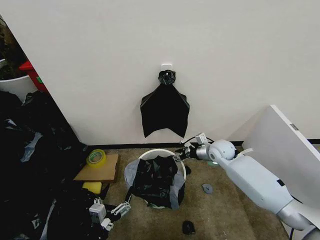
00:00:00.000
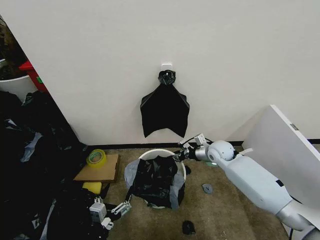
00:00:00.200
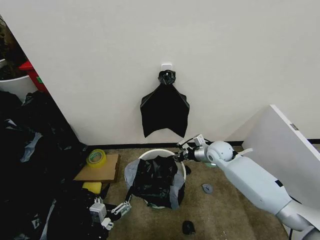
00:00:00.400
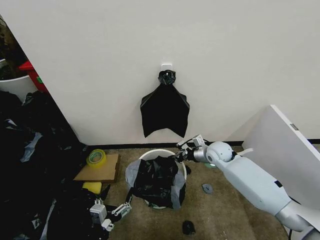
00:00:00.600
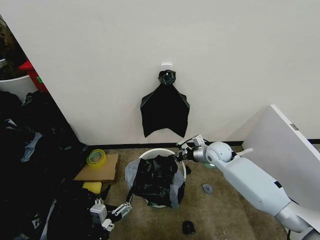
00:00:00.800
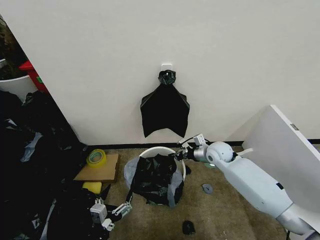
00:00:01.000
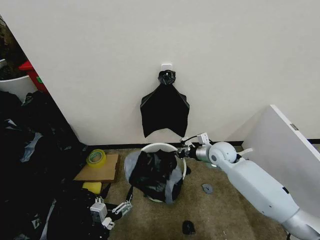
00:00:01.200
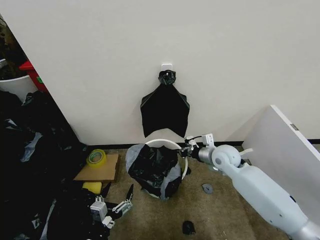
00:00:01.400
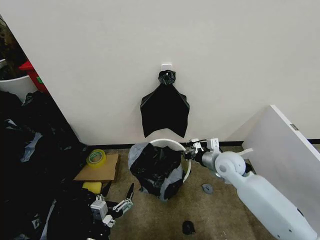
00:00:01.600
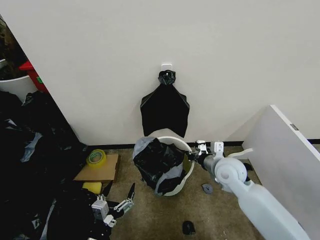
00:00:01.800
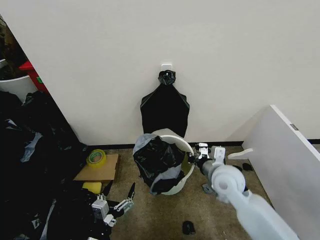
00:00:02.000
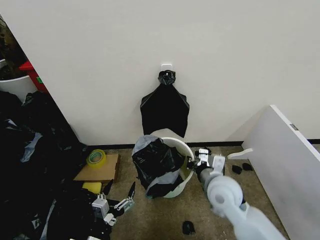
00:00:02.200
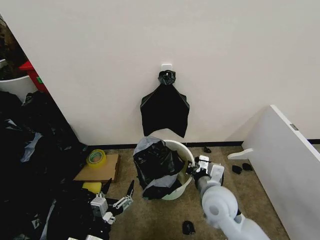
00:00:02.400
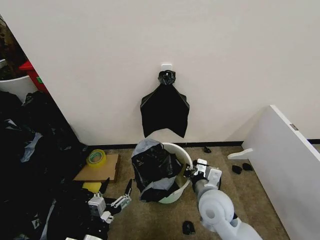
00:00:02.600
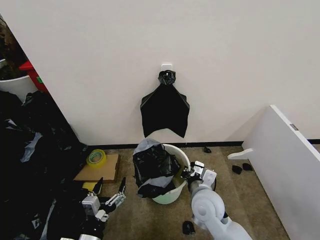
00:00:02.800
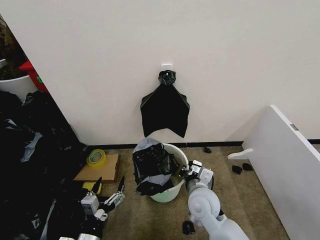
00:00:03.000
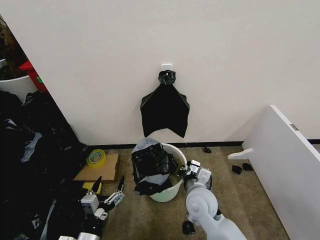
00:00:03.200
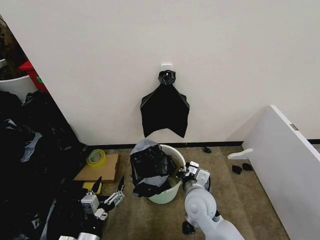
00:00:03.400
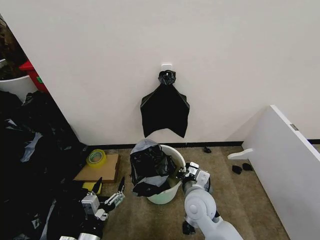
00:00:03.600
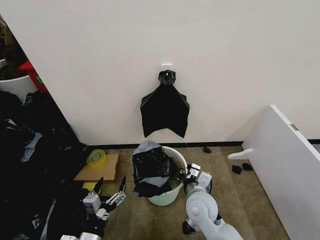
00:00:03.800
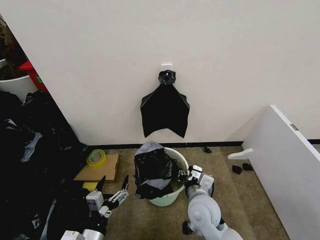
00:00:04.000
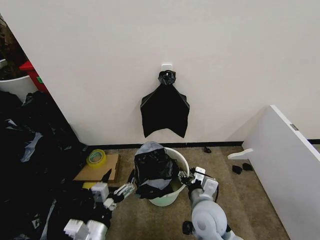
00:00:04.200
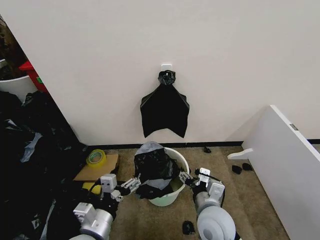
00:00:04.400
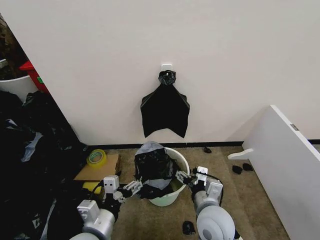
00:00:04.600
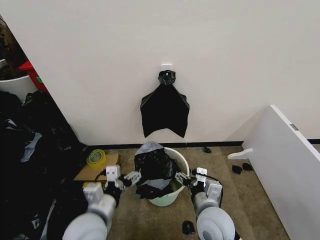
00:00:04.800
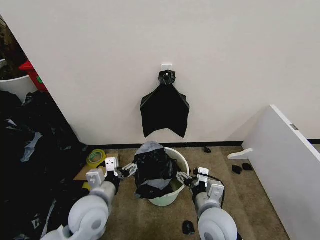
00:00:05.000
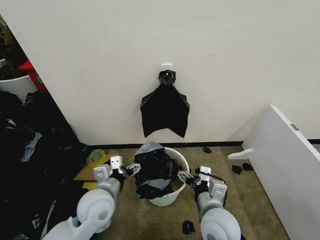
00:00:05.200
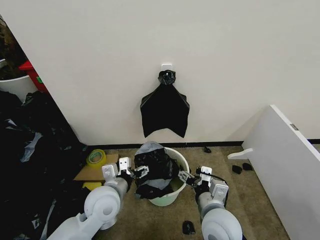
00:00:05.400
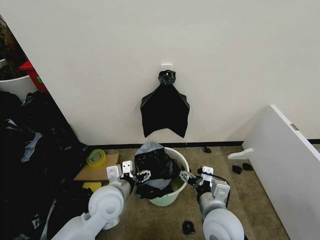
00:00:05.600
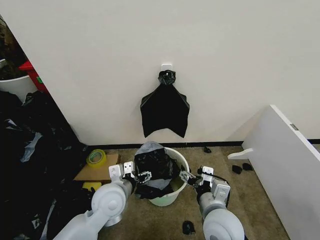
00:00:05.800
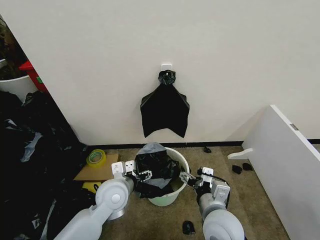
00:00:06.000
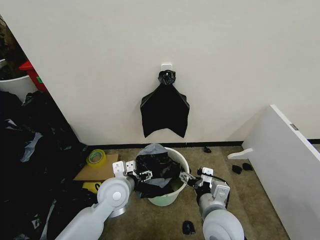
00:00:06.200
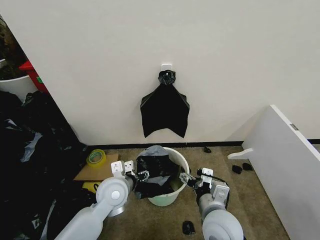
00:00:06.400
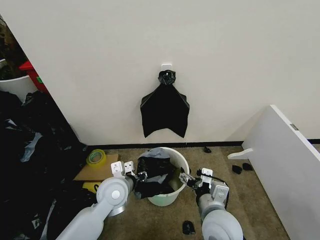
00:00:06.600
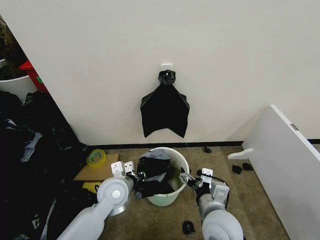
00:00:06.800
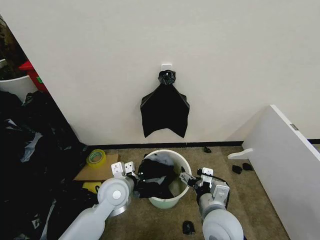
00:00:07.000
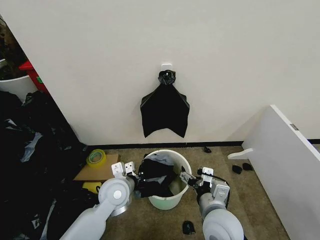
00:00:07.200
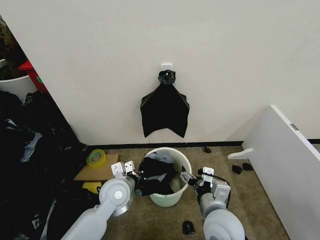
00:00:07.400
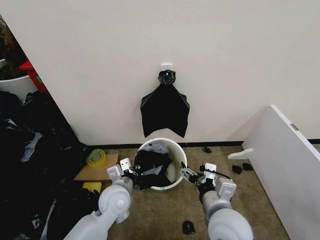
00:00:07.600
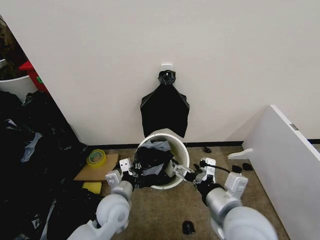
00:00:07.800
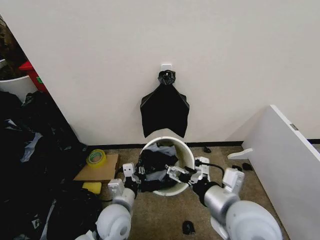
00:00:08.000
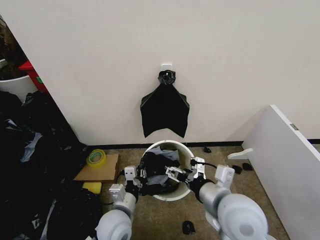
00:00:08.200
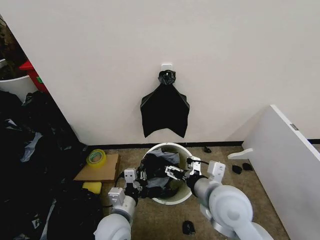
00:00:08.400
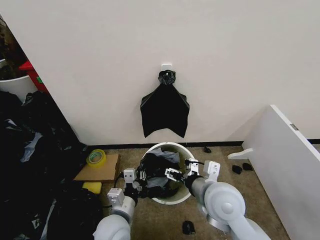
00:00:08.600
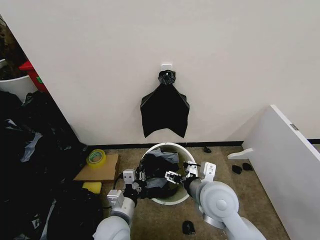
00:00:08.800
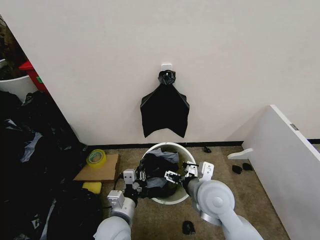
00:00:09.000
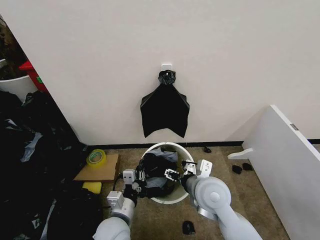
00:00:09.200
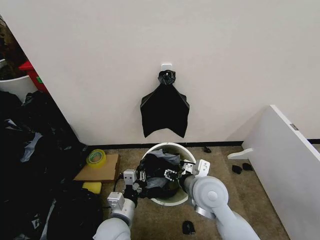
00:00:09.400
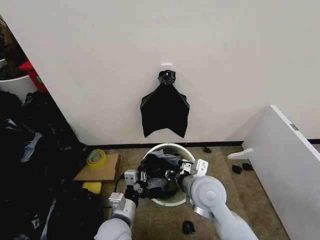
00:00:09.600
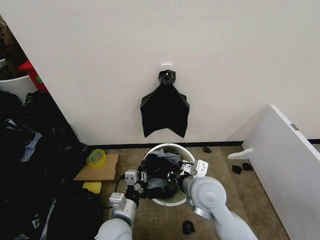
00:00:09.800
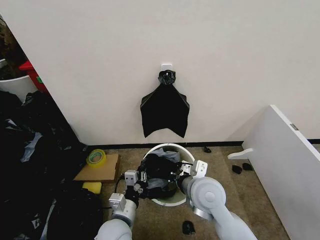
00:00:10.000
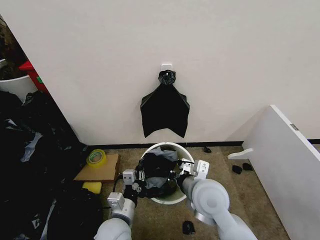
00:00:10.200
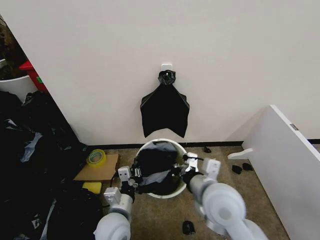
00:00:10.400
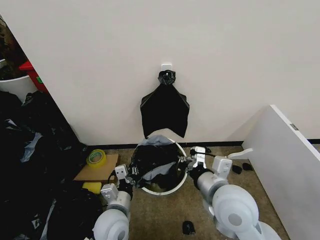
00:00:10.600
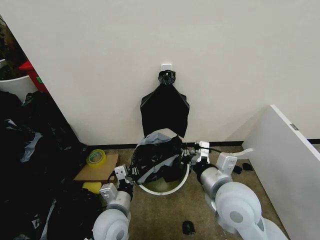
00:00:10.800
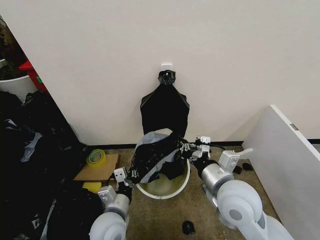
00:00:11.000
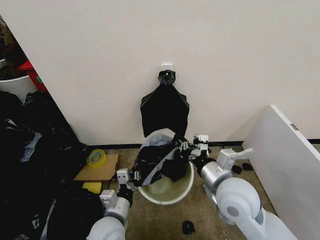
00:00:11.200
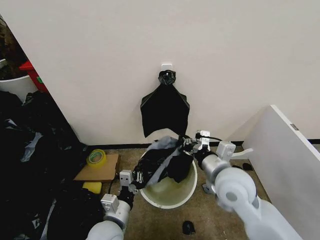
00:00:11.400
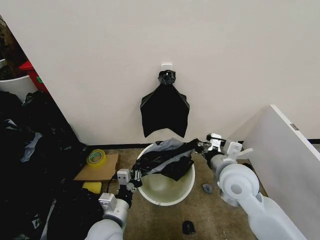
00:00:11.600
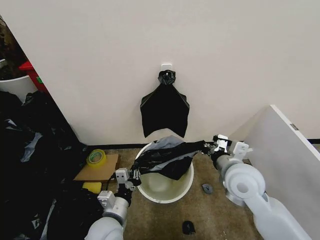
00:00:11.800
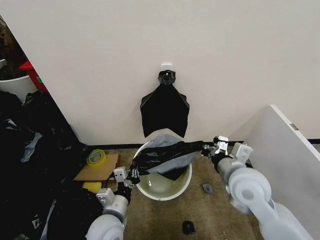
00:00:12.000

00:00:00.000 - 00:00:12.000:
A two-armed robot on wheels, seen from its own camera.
Task of the whole recording: Place the garbage bag over the trash bin.
00:00:00.000 - 00:00:01.600: The right gripper is displaced backward by roughly 10 cm, and closes its fingers.
00:00:01.600 - 00:00:03.000: The right gripper moves backward and to the left, approximately 15 cm.
00:00:03.000 - 00:00:04.400: The right gripper travels backward by roughly 5 cm, and opens up, while the left gripper travels upward by about 5 cm.
00:00:04.400 - 00:00:06.000: The left gripper is displaced forward by roughly 15 cm.
00:00:06.000 - 00:00:07.600: The left gripper closes.
00:00:07.600 - 00:00:09.000: The left gripper is displaced backward by approximately 10 cm. The right gripper moves forward, roughly 10 cm.
00:00:09.000 - 00:00:10.400: The right gripper closes its fingers.
00:00:10.400 - 00:00:12.000: The right gripper goes some 10 cm to the right.

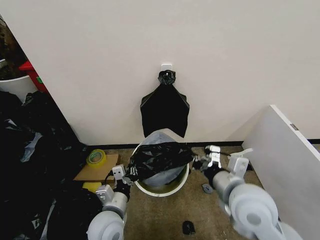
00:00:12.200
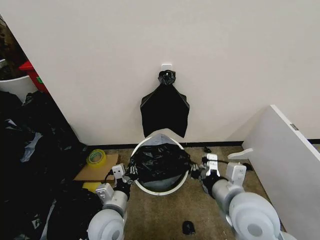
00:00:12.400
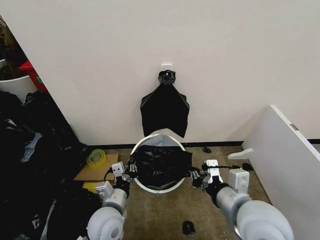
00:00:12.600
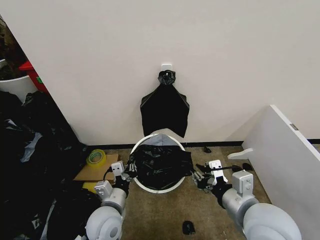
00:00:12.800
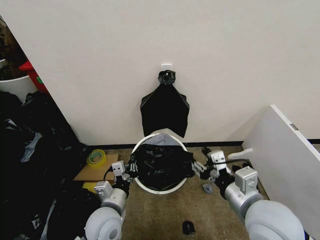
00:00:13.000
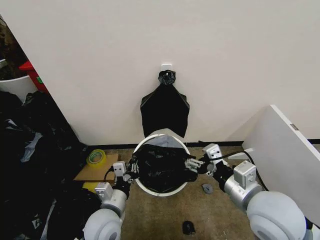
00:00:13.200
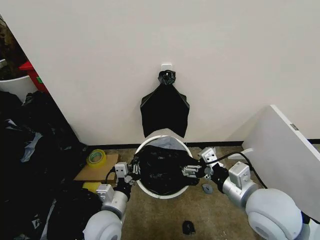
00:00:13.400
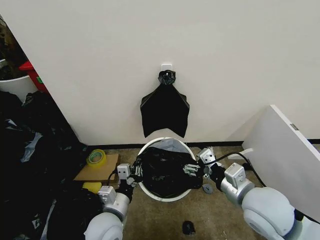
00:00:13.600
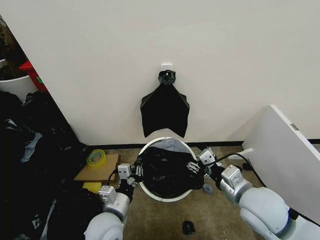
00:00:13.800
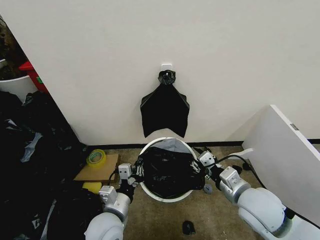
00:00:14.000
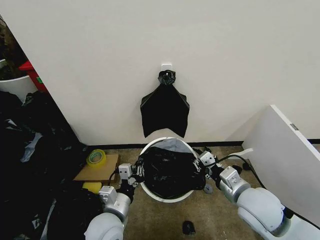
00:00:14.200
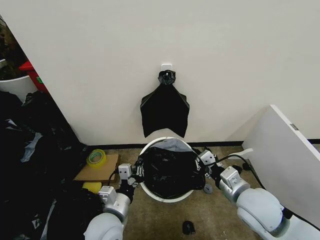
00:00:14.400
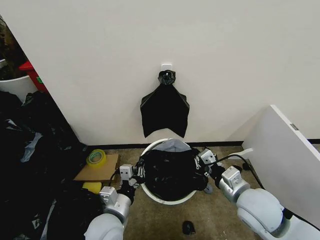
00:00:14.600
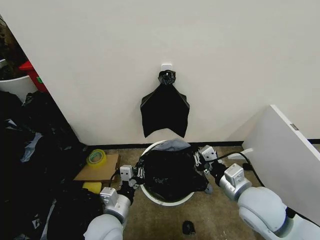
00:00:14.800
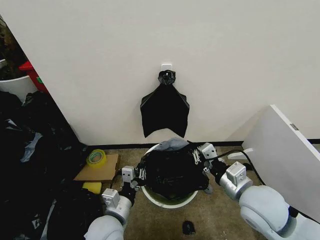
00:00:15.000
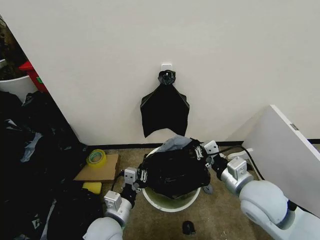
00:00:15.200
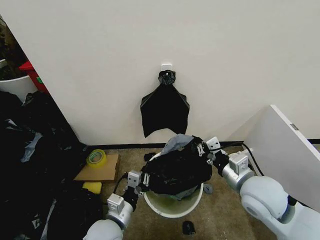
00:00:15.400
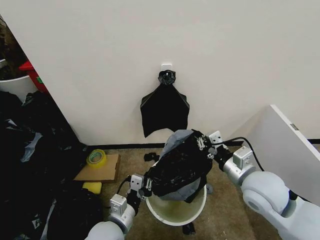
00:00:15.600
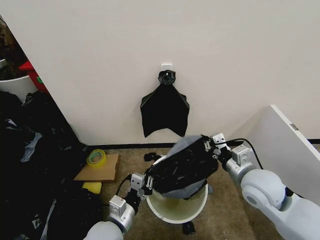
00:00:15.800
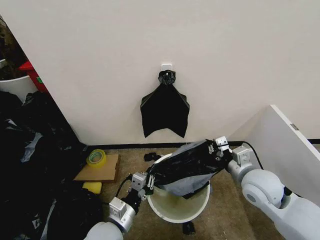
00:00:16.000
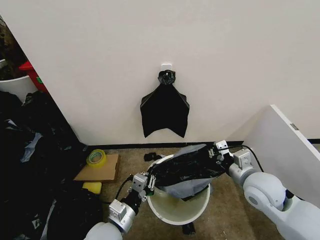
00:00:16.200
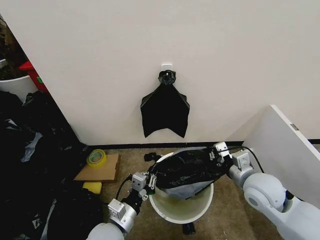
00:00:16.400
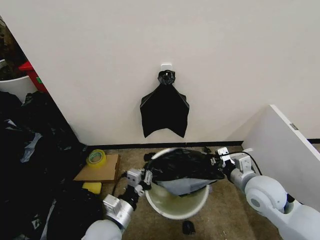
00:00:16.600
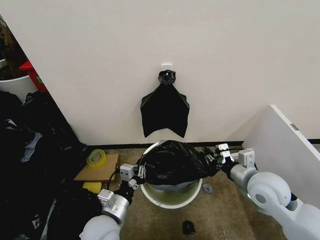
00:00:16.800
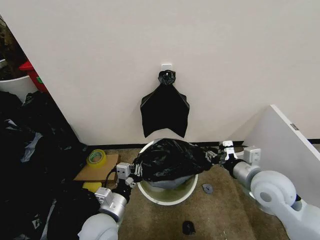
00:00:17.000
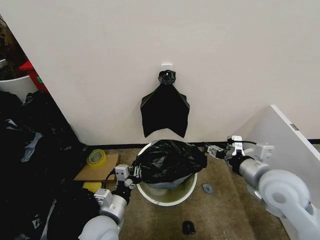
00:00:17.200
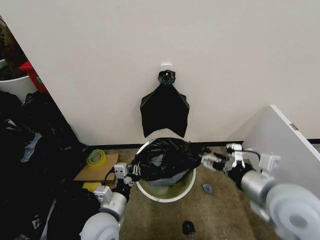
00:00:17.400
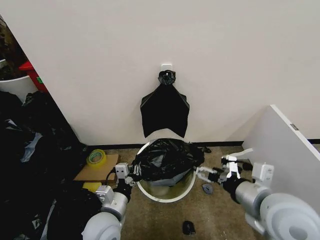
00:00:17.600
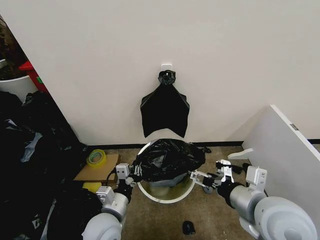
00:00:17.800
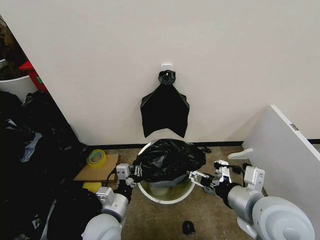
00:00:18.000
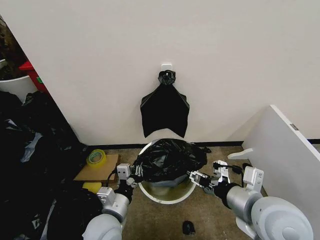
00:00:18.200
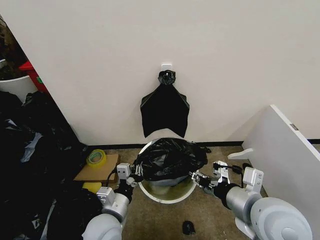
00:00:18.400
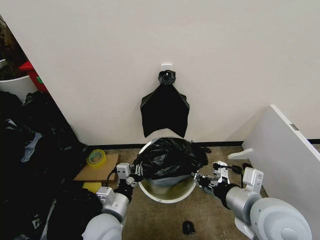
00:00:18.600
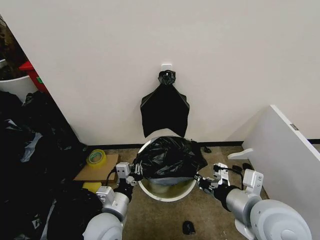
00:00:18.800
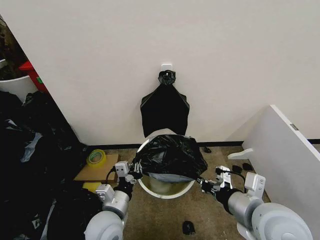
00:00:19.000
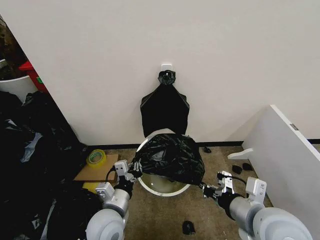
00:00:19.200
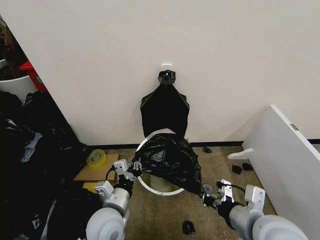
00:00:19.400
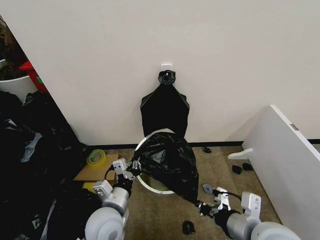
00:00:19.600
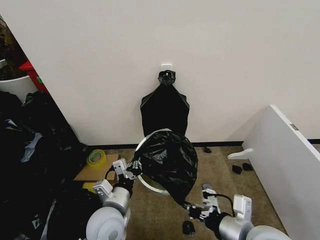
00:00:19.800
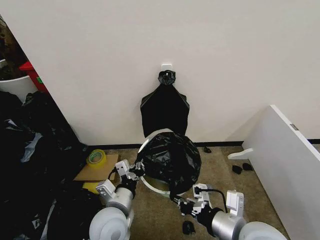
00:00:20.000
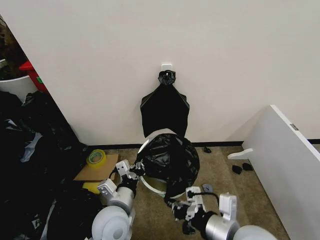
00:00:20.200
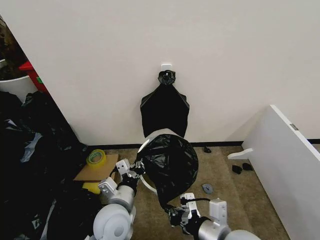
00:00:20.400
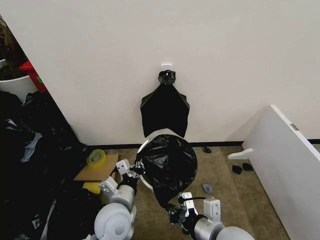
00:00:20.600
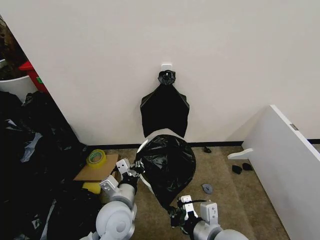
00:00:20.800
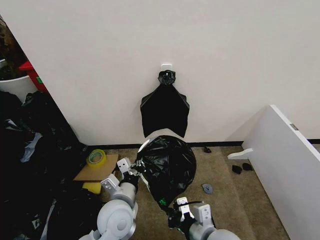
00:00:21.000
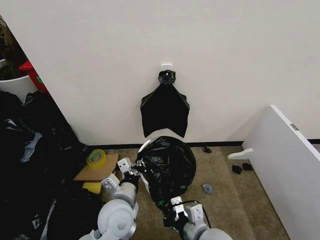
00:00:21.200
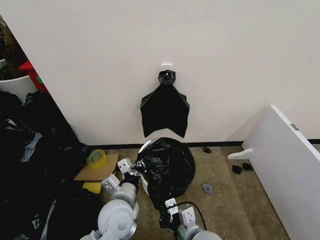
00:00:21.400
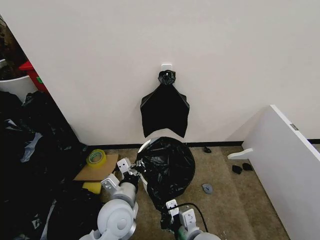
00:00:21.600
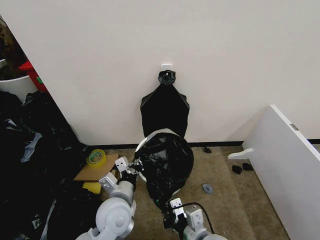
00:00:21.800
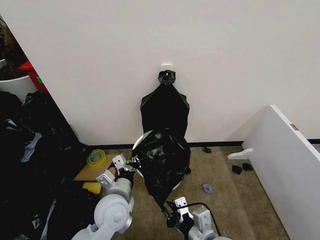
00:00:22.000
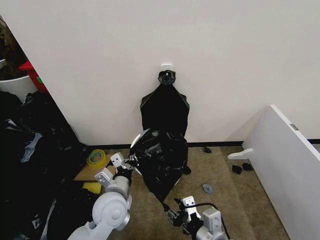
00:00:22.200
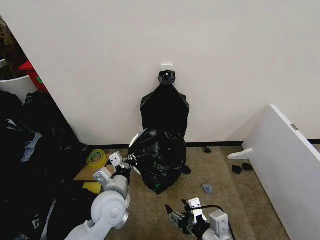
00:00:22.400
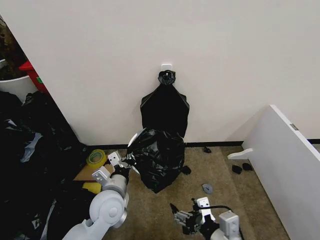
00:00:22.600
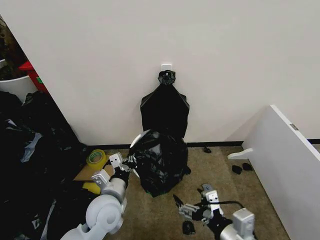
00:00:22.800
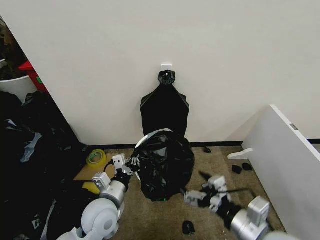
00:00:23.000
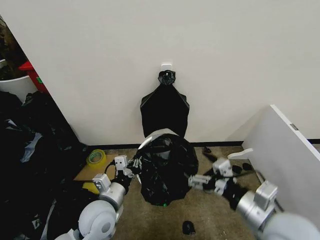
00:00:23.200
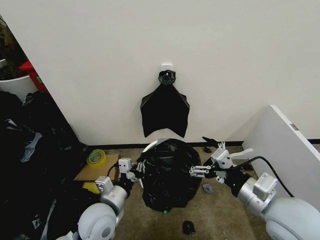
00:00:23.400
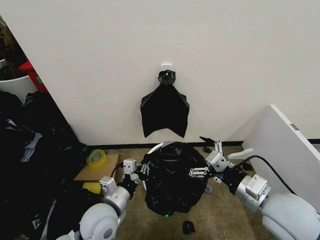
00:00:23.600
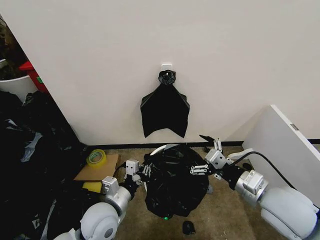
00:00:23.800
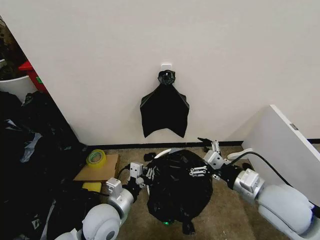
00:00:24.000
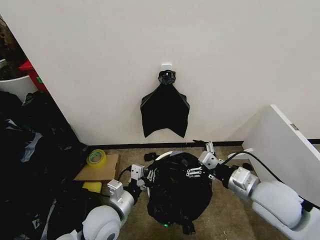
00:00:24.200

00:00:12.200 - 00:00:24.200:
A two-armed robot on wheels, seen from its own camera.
Task of the whole recording: Place the garbage bag over the trash bin.
00:00:12.200 - 00:00:13.800: The right gripper opens up.
00:00:13.800 - 00:00:15.200: The right gripper closes.
00:00:15.200 - 00:00:16.600: The right gripper moves to the right, approximately 5 cm.
00:00:16.600 - 00:00:18.200: The right gripper shifts approximately 15 cm backward, upward and to the left, and opens its fingers.
00:00:18.200 - 00:00:19.800: The right gripper ends up some 5 cm from where it was, and closes its fingers.
00:00:19.800 - 00:00:21.200: The right gripper travels to the left and downward by about 15 cm.
00:00:21.200 - 00:00:22.600: The right gripper travels to the right by roughly 5 cm, and opens up.
00:00:22.600 - 00:00:24.200: The right gripper moves forward, to the right and upward, approximately 15 cm.
